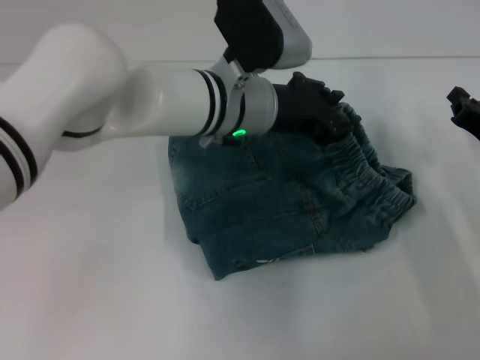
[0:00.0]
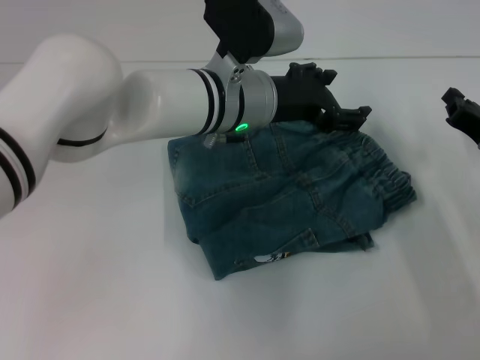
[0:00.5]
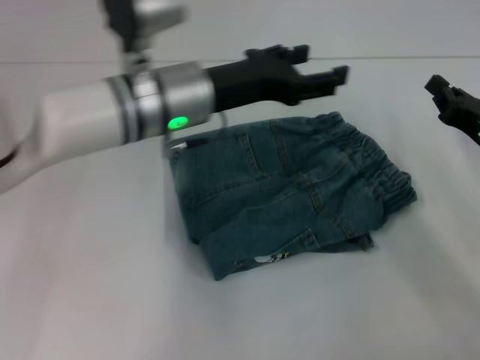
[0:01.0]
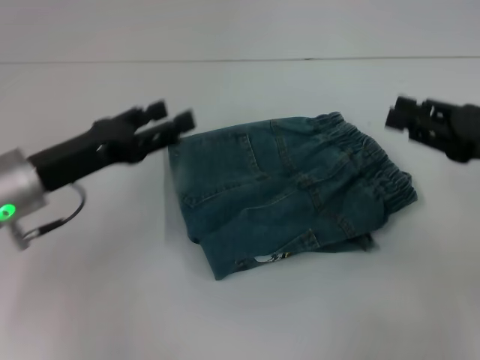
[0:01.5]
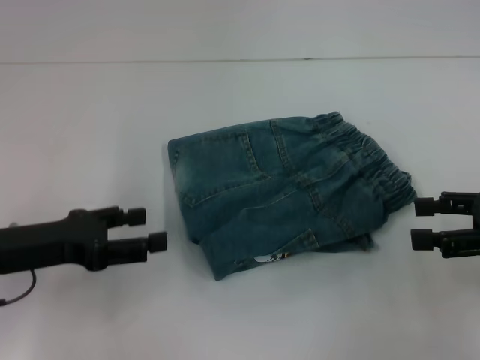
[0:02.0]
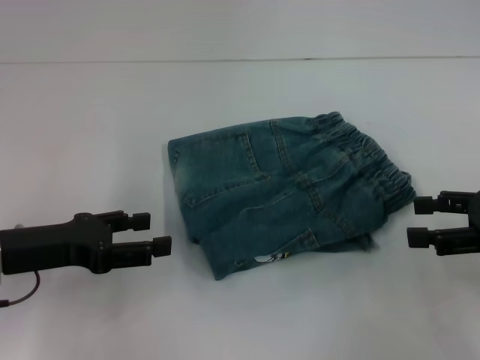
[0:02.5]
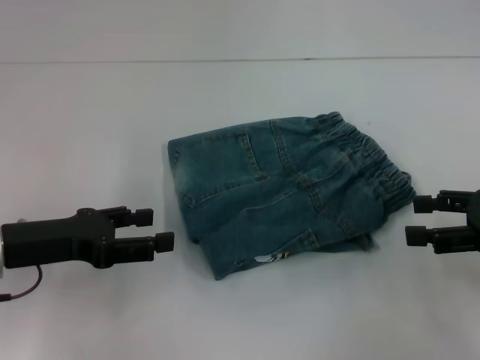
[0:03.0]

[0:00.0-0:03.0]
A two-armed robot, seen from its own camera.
0:00.0 to 0:01.5: The left gripper goes roughly 20 cm to the left, and opens. The right gripper heads upward, covering about 10 cm.
0:01.5 to 0:03.0: The left gripper moves roughly 5 cm. The right gripper opens.
